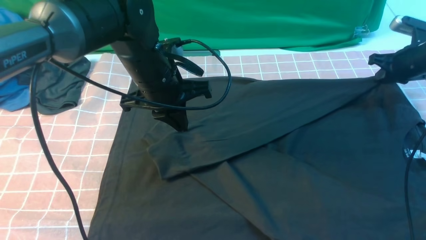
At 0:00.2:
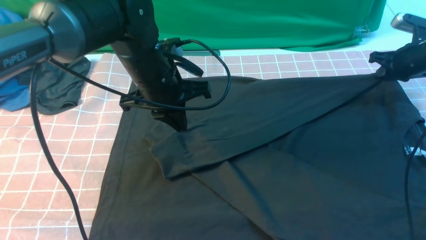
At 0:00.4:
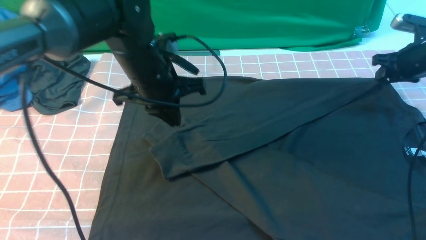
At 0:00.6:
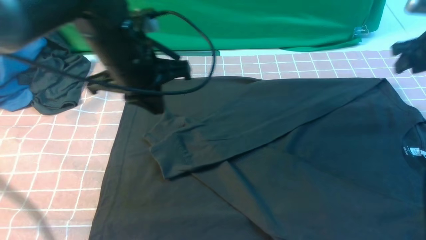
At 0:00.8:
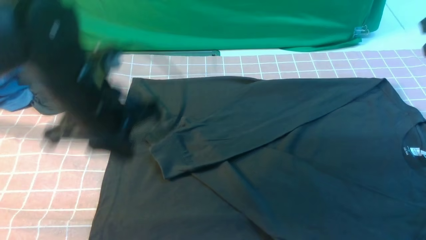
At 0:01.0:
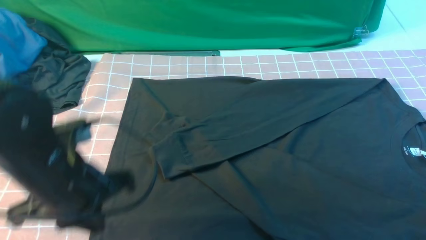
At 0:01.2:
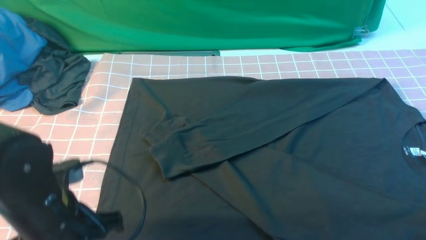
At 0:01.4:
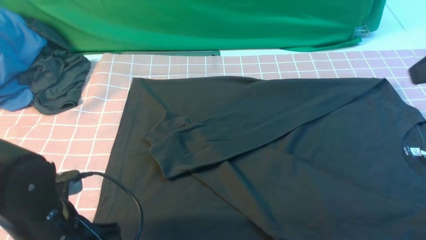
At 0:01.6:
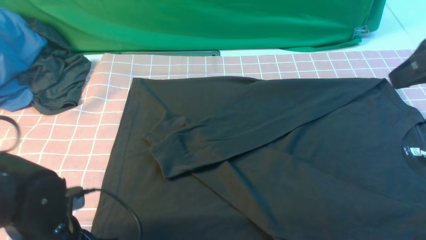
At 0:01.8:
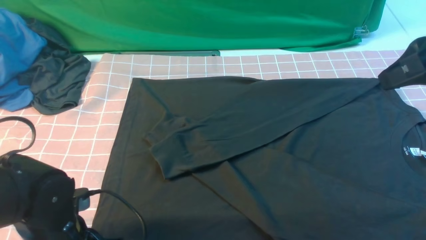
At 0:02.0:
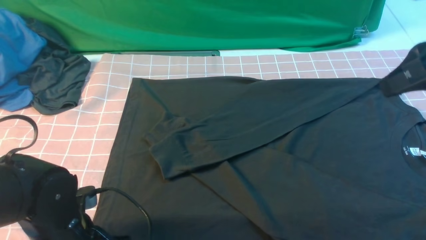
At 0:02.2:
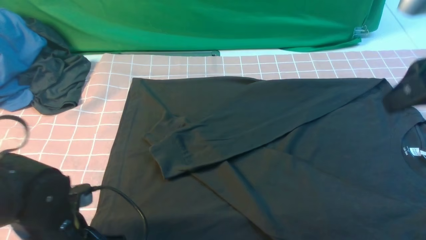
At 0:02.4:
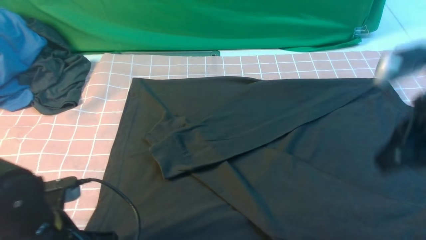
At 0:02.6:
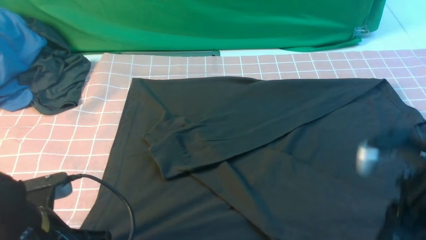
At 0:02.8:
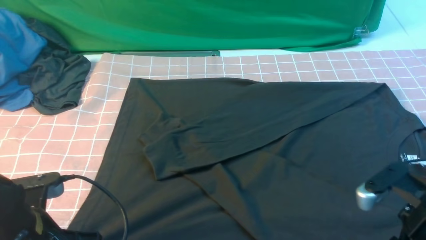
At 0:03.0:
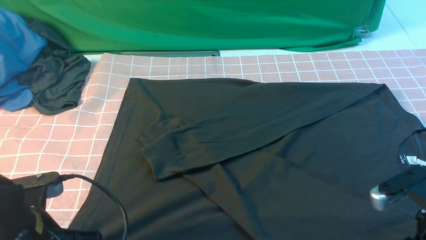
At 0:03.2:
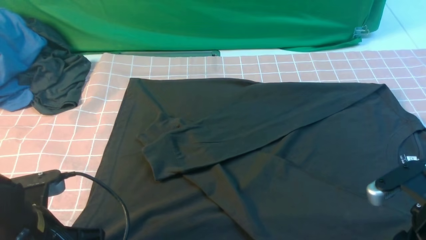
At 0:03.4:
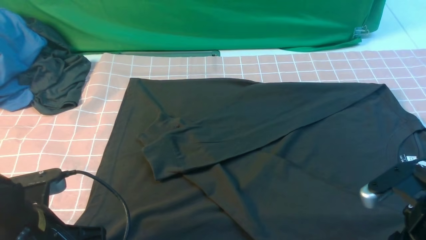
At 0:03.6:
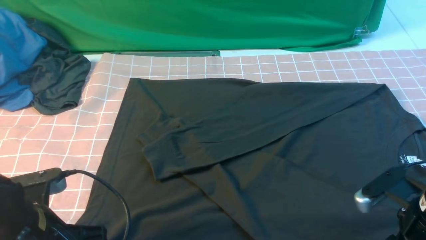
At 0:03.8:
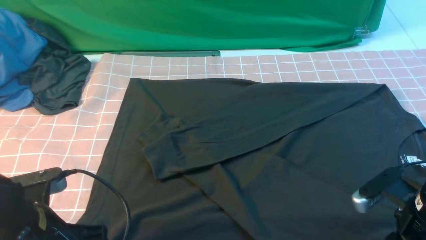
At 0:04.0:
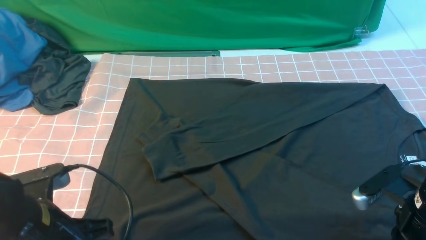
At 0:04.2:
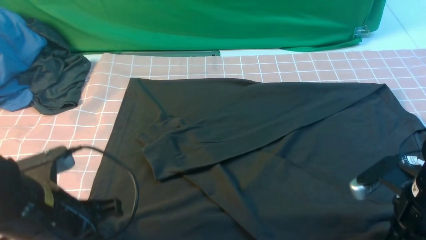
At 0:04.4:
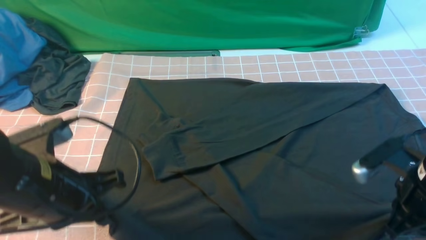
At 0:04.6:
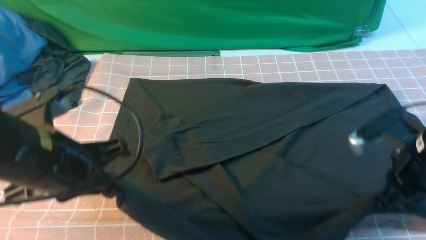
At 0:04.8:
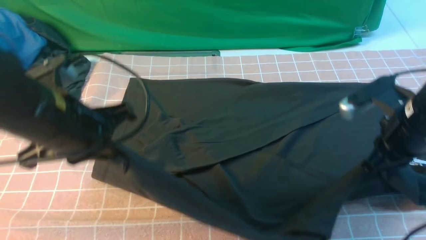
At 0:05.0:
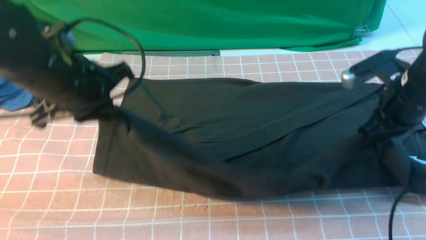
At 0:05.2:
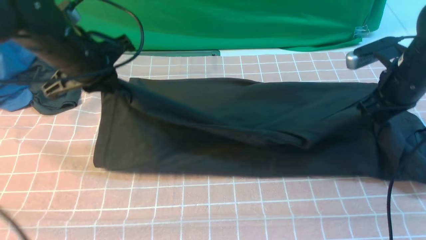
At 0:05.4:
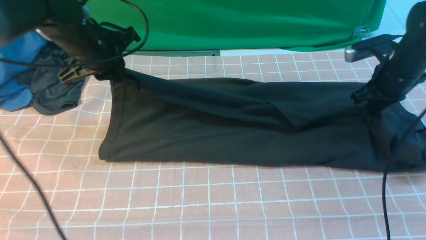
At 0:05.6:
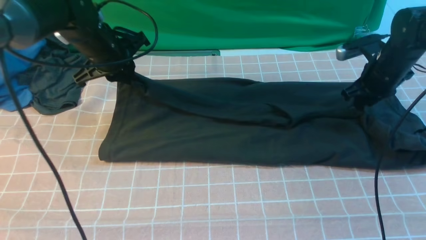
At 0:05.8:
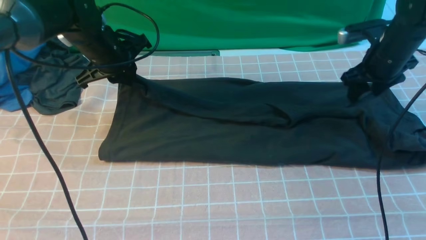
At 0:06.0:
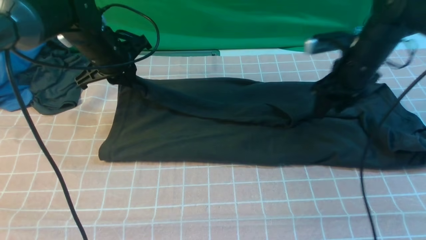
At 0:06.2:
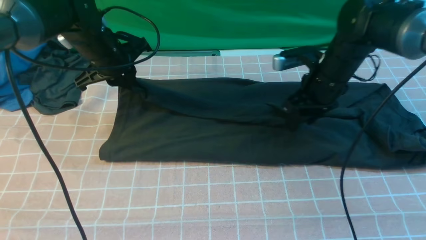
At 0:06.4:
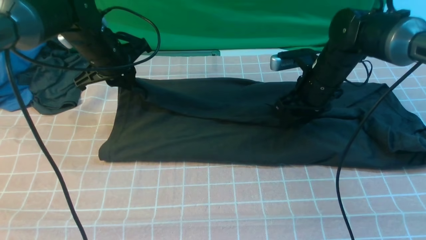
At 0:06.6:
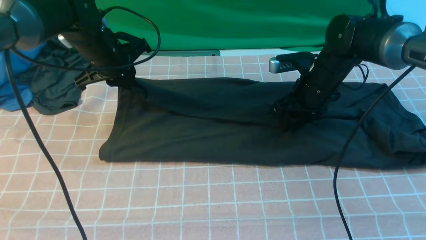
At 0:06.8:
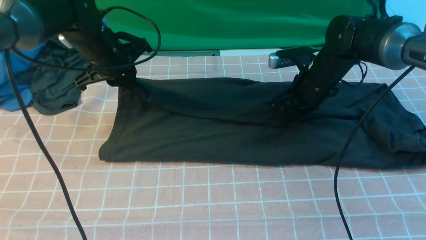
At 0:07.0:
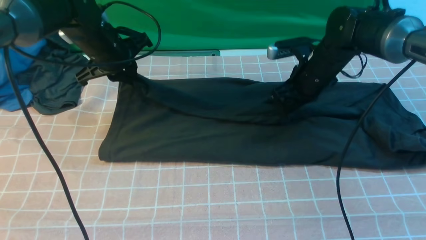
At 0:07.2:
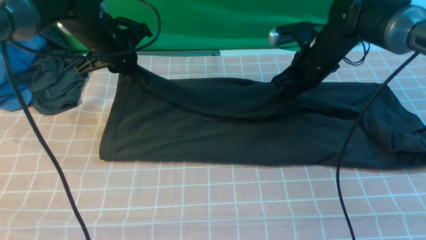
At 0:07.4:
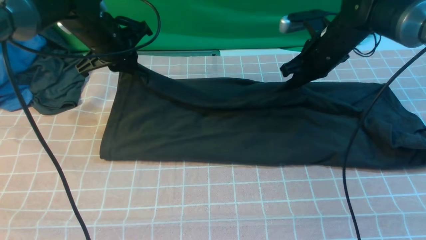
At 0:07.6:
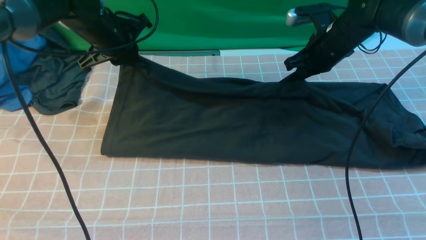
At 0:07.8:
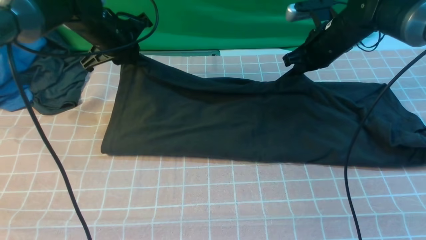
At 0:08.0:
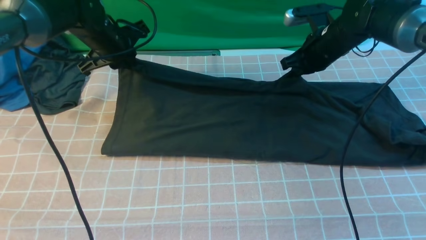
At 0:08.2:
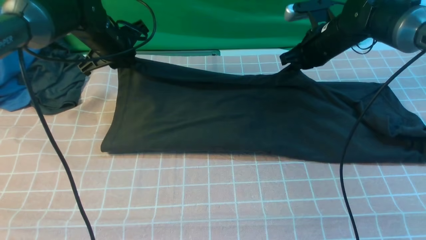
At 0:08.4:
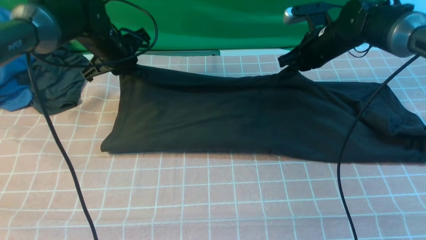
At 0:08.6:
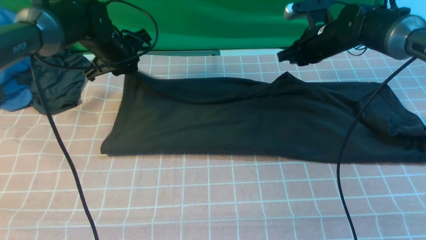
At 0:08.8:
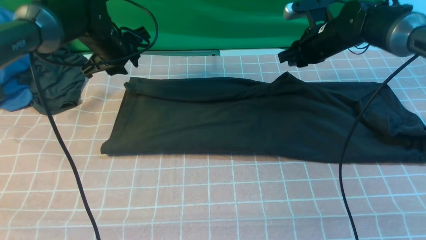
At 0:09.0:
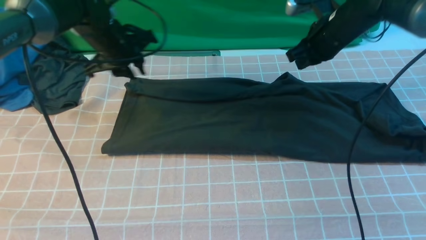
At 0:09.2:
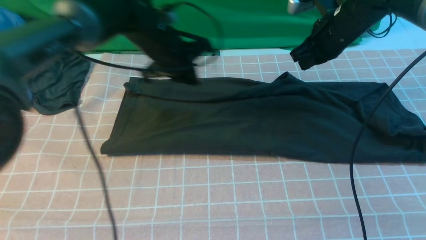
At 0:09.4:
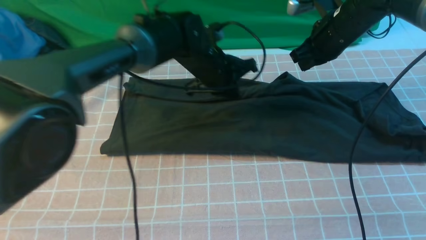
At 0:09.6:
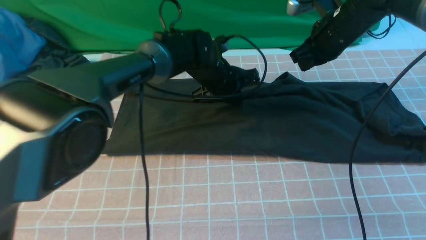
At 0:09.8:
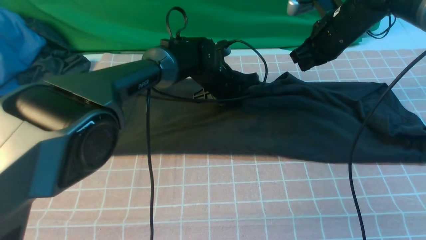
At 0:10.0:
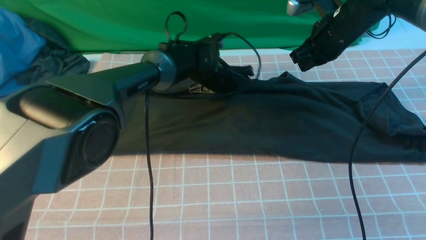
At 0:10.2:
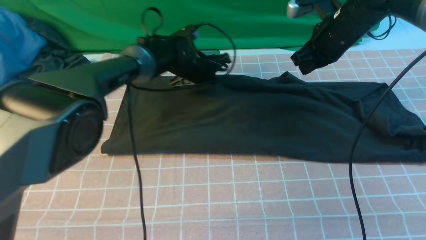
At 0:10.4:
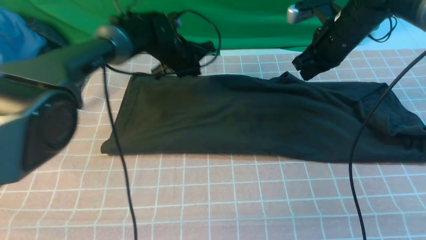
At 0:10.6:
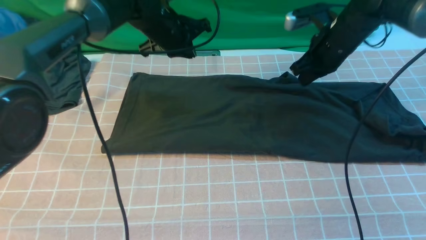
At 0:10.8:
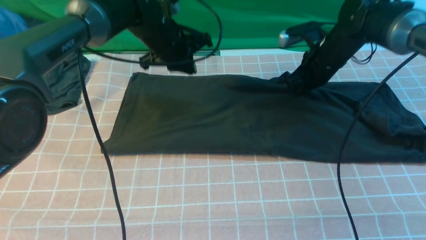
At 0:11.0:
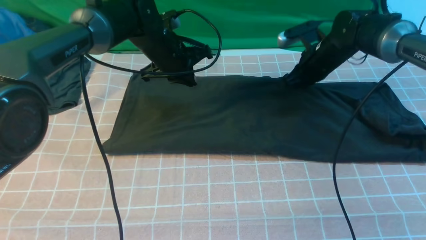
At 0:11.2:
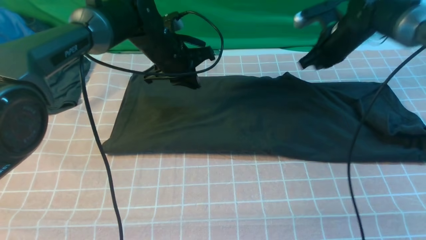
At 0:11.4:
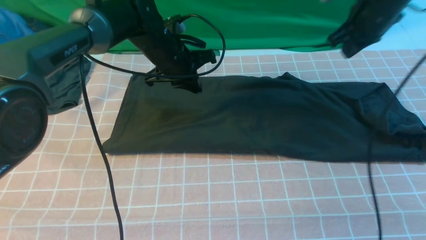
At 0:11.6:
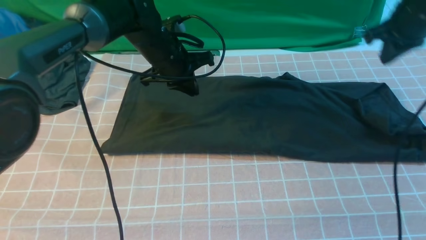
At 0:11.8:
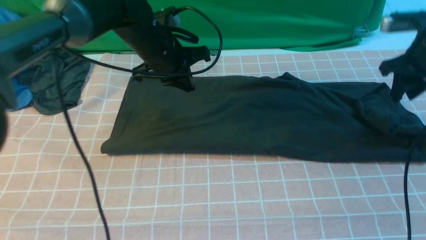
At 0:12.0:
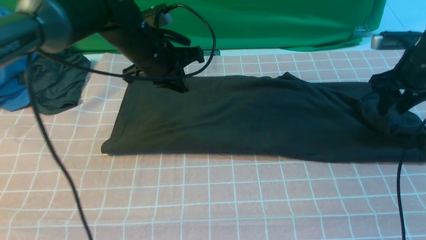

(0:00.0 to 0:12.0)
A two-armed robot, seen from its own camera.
Step, 0:00.0 - 0:04.0: use both arms simultaneously to clamp the lower edge of the clothing fabric.
Step, 0:04.2 - 0:08.8: use both arms to drag the lower edge of the fabric forward and fold it over the upper edge.
0:00.0 - 0:01.6: The left gripper is displaced backward, to the left and downward by about 25 cm, and opens up; the right gripper heads backward, upward and to the left, covering approximately 30 cm, and opens, then closes once more.
0:01.6 - 0:03.0: The left gripper closes up, while the right gripper moves downward and backward, roughly 20 cm, and opens up.
0:03.0 - 0:04.4: The left gripper goes about 5 cm upward; the right gripper is displaced forward by about 5 cm, and closes up.
0:04.4 - 0:06.0: Both grippers travel together forward, approximately 25 cm. The right gripper opens its fingers.
0:06.0 - 0:07.6: The right gripper moves roughly 5 cm, and closes up.
0:07.6 - 0:09.0: The grippers move only a little.
0:09.0 - 0:10.4: The left gripper travels to the right by some 5 cm.
0:10.4 - 0:12.0: The left gripper is displaced backward and upward by some 10 cm. The right gripper is displaced to the right by approximately 15 cm, and opens up.

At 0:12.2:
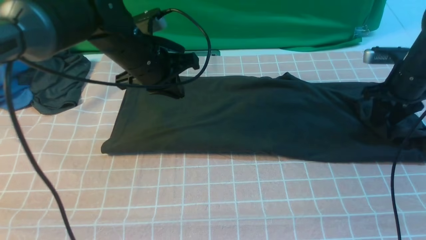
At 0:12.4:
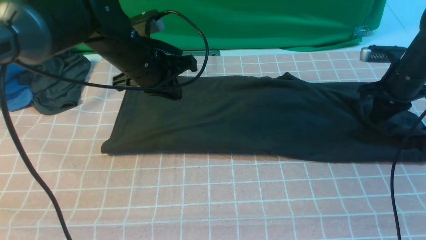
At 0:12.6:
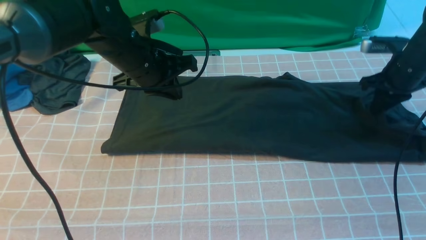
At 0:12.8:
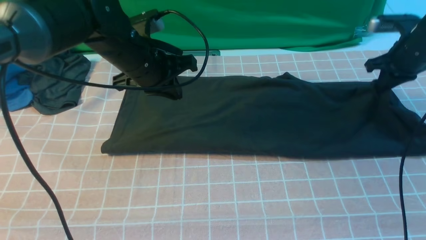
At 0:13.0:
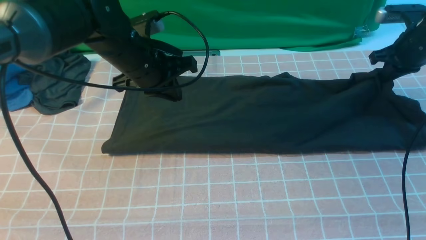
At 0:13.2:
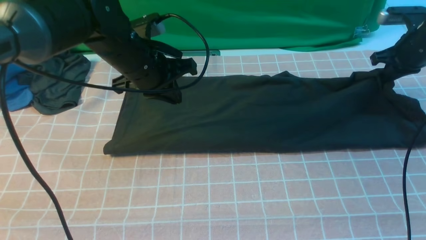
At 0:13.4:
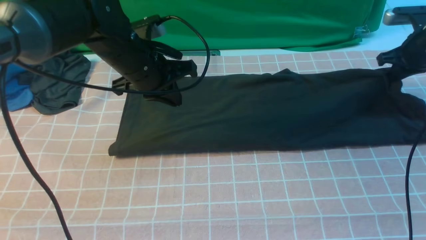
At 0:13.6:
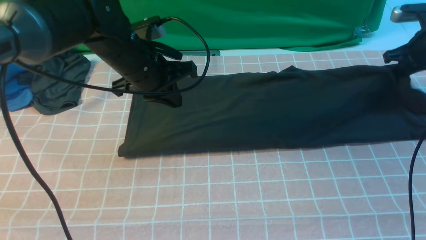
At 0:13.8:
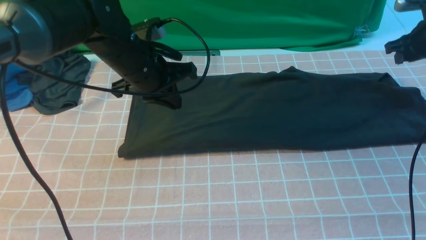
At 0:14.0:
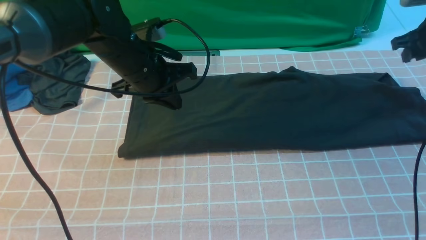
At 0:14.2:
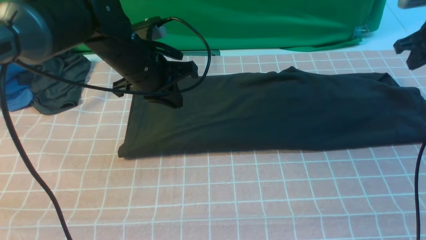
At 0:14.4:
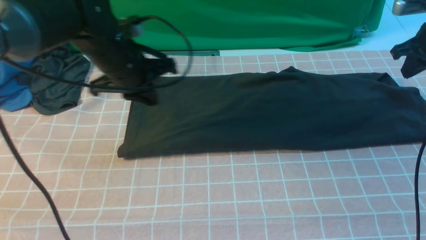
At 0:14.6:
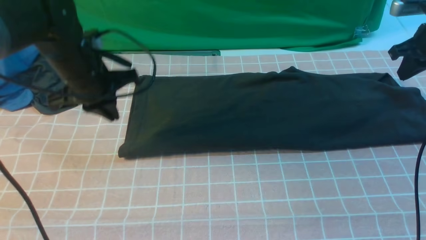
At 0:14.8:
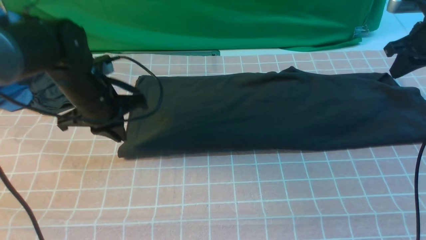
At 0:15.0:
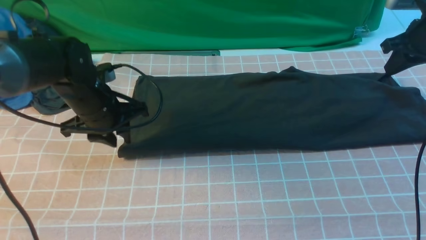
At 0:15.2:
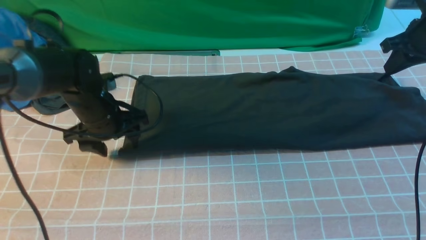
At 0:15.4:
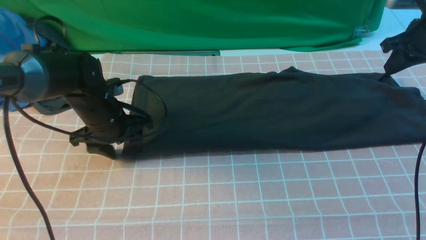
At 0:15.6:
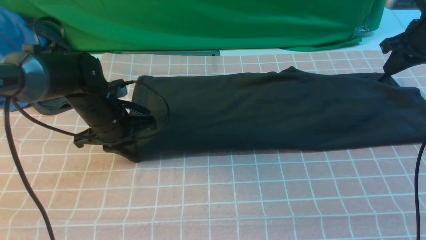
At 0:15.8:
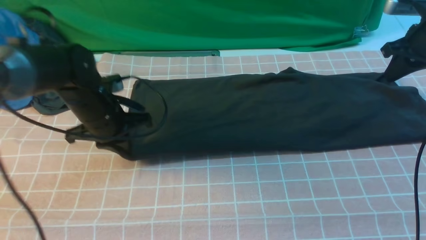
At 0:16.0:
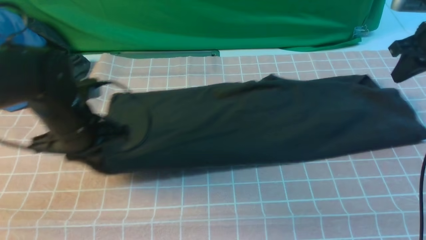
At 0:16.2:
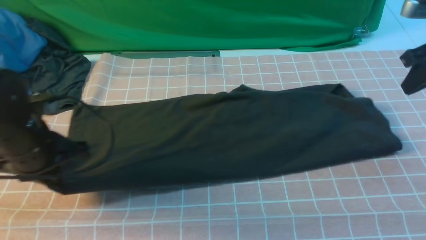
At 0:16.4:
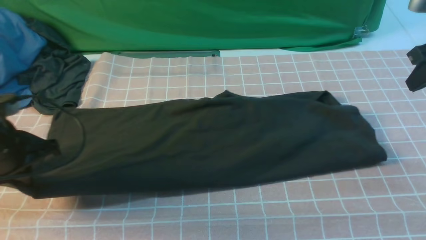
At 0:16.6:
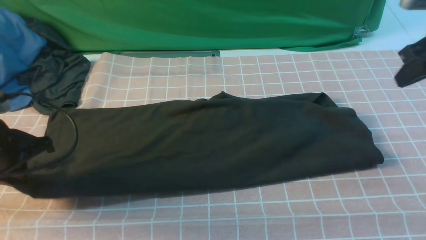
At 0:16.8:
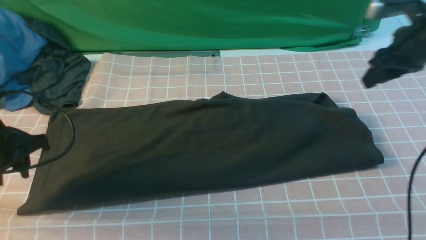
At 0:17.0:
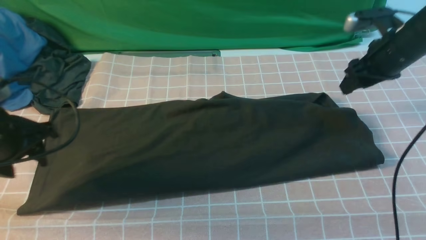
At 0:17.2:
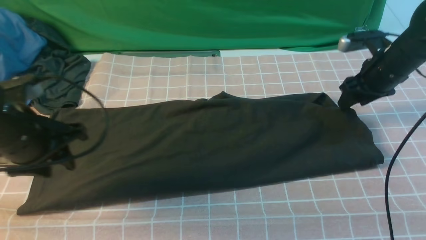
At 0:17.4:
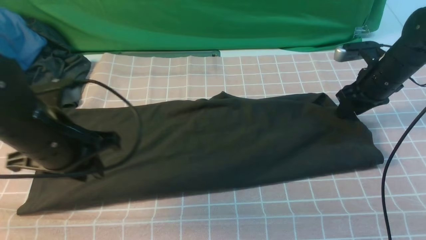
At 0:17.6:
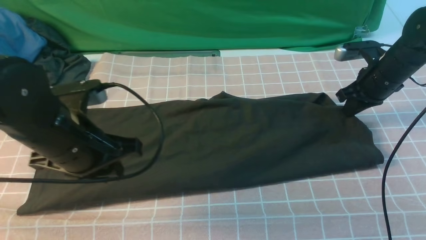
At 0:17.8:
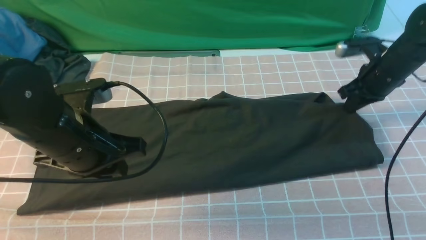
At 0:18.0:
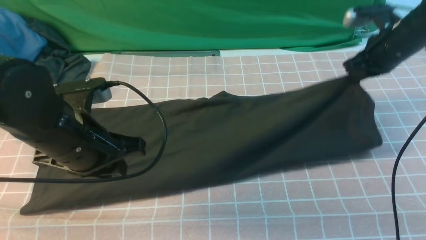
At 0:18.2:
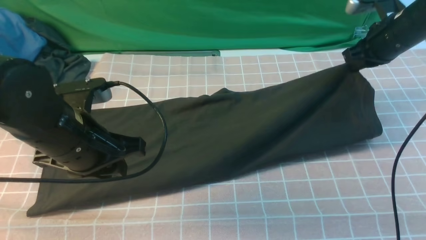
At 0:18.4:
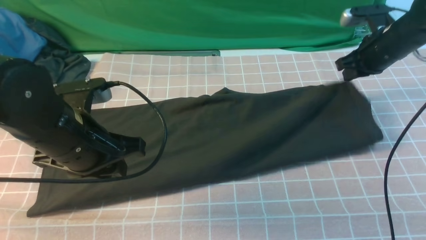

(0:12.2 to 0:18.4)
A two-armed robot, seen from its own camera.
0:12.2 - 0:13.8: The right gripper shifts roughly 5 cm to the right, and closes, then reopens.
0:13.8 - 0:15.4: The right gripper changes place by about 5 cm, and closes its fingers; the left gripper is displaced downward and to the left by approximately 10 cm, and opens up.
0:15.4 - 0:16.8: The left gripper moves backward, to the left and upward, about 15 cm, and closes and opens again. Meanwhile the right gripper travels to the left by roughly 5 cm, and opens.
0:16.8 - 0:18.4: The right gripper heads forward and downward, covering approximately 10 cm, and closes. Meanwhile the left gripper travels to the right by some 15 cm.
